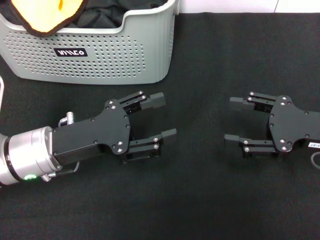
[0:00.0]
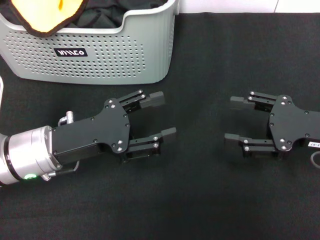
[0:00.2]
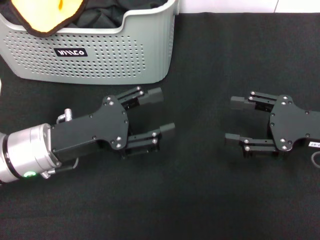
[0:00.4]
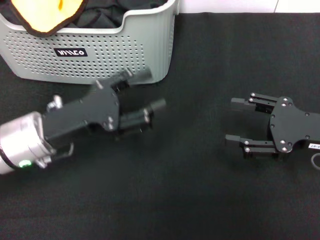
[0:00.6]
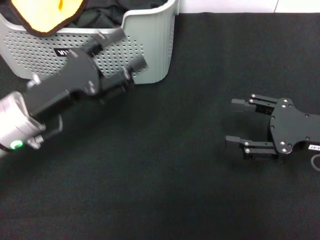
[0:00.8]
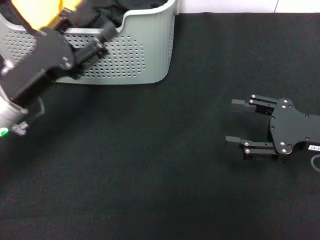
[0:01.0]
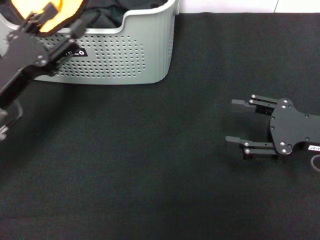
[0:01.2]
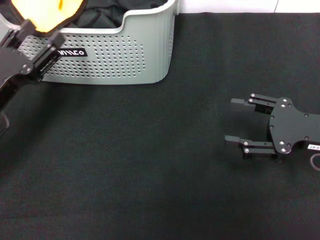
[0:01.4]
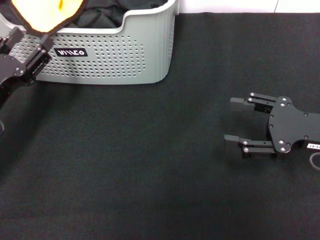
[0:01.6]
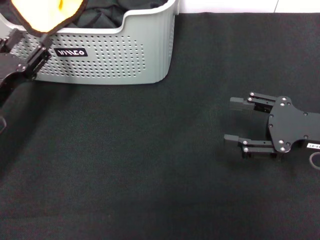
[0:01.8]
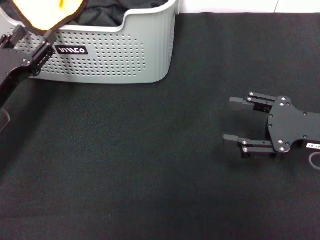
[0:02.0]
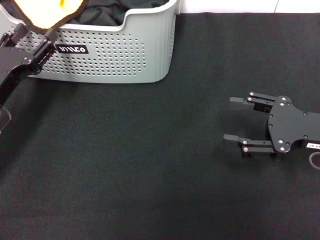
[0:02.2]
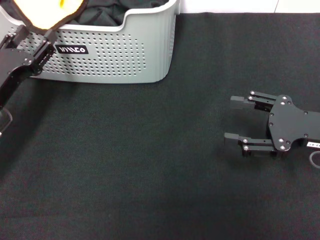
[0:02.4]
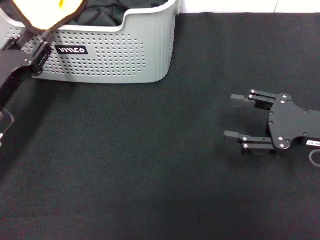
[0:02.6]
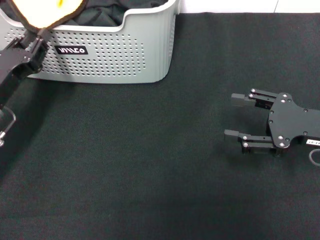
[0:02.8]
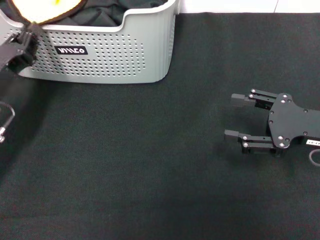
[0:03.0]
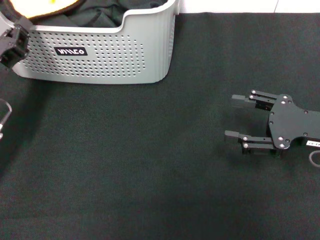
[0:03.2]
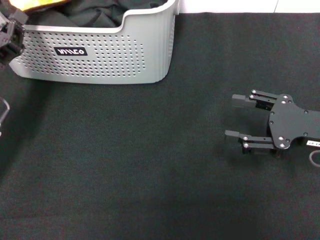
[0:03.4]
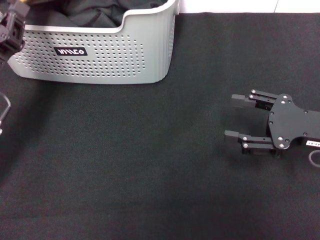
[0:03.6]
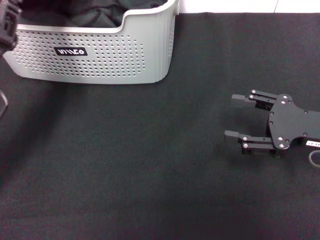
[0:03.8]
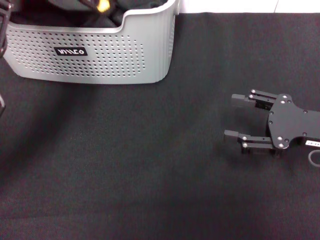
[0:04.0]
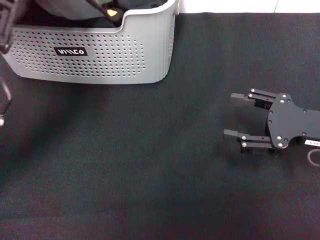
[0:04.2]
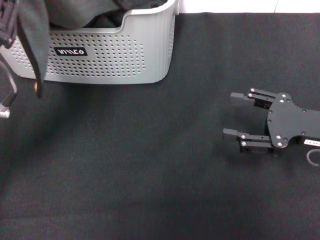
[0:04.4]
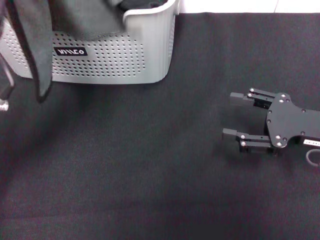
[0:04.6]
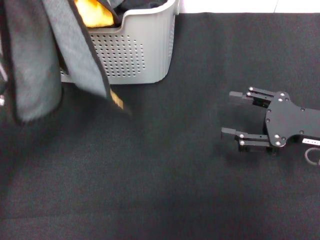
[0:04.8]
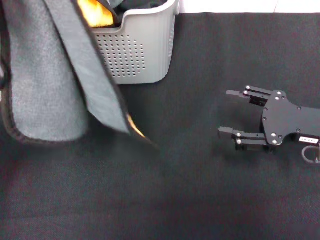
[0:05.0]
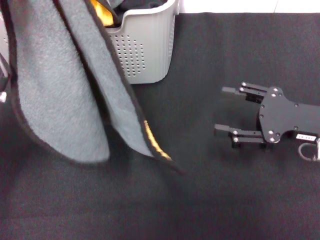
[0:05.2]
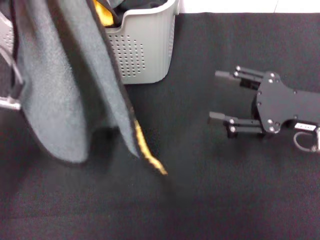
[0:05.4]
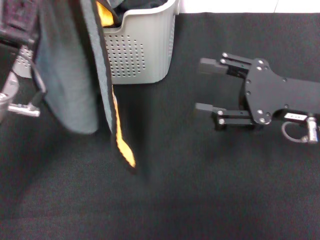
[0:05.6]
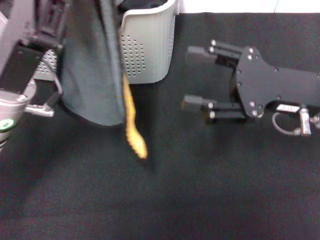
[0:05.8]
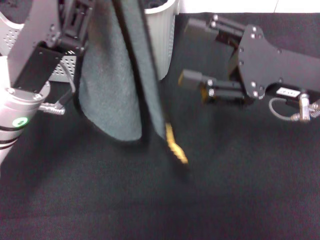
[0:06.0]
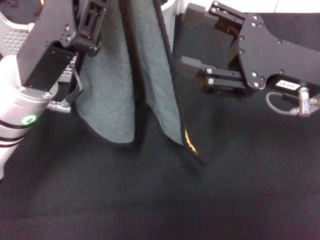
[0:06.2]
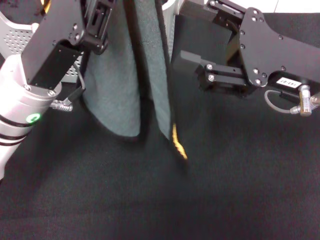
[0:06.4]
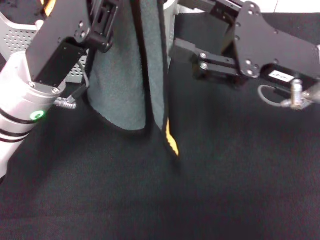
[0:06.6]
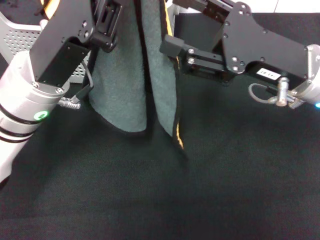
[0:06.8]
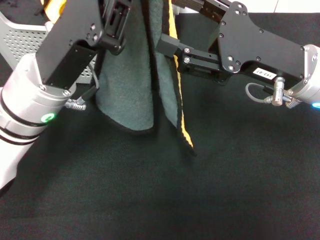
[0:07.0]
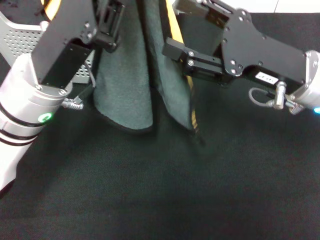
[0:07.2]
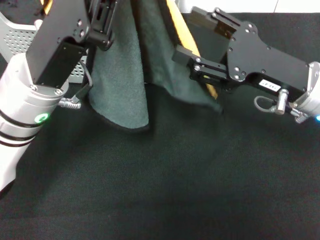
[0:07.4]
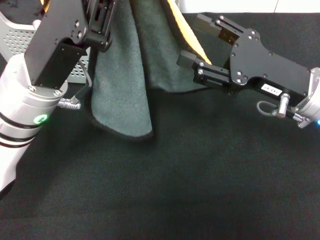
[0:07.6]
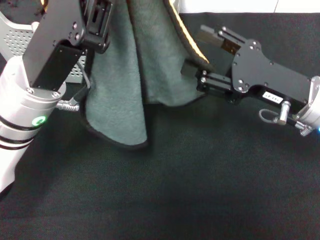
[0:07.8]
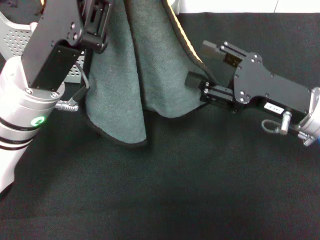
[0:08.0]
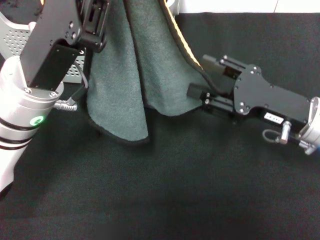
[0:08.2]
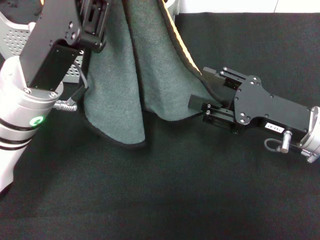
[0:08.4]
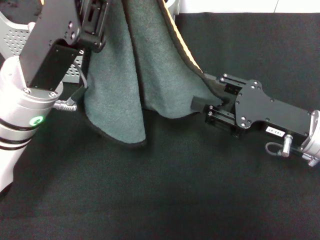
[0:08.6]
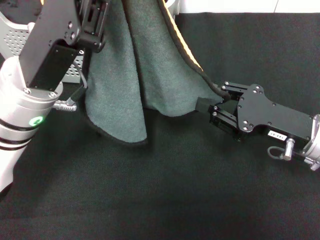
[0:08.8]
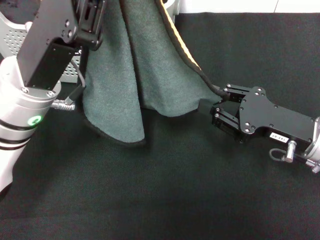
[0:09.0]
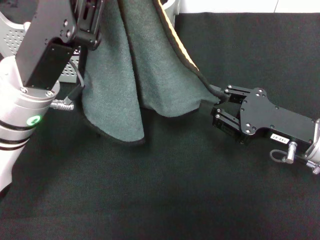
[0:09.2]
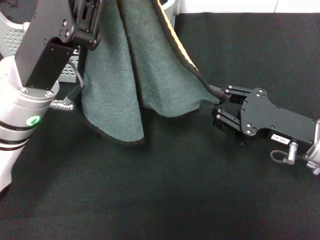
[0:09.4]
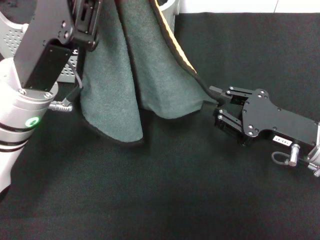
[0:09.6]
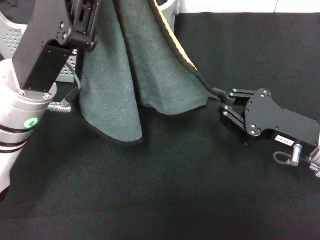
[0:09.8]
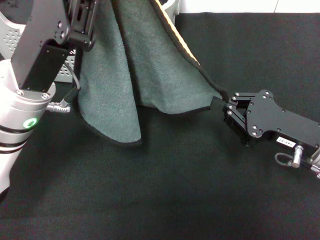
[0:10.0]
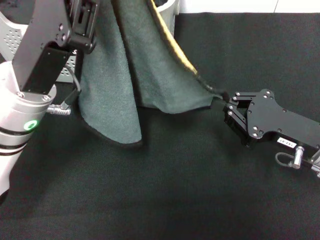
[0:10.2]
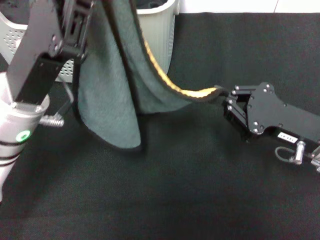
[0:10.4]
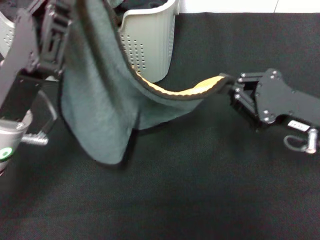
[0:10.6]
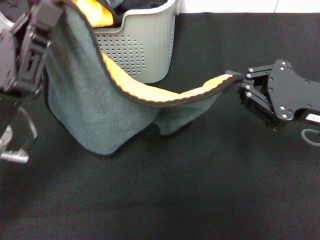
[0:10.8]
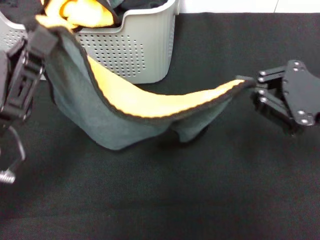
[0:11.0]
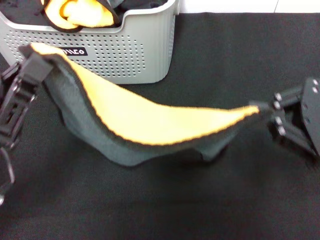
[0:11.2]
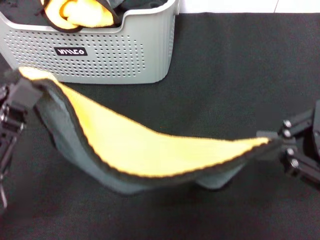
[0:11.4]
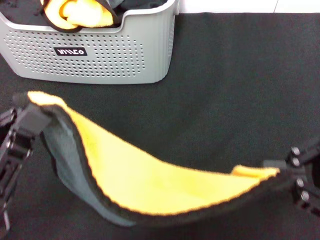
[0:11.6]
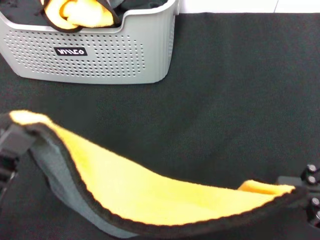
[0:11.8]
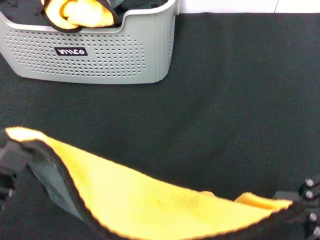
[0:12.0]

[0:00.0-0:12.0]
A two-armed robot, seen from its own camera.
Task of the whole recording: pick up the towel from the storage box and lay it flat on the black tablecloth.
Step, 0:00.0 to 0:02.8: Pick up a towel with the left gripper.
Step, 0:03.0 to 0:09.8: Spread the towel flat with the left gripper.
0:00.0 to 0:01.6: The left gripper is displaced to the left by roughly 10 cm.
0:01.6 to 0:03.0: The left gripper closes up.
0:03.0 to 0:04.4: The left gripper heads upward, covering some 10 cm, and closes its fingers.
0:04.4 to 0:06.0: The right gripper shifts about 10 cm to the left and upward. The left gripper travels to the right by some 5 cm.
0:07.6 to 0:09.0: The right gripper moves downward, about 5 cm, and closes.
0:09.0 to 0:10.4: The right gripper closes up.
0:10.4 to 0:12.0: The left gripper goes approximately 15 cm backward and to the left. The right gripper shifts roughly 15 cm backward, upward and to the right.

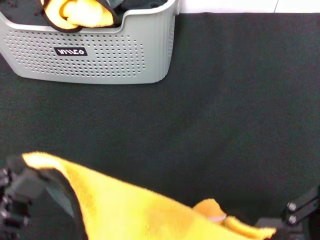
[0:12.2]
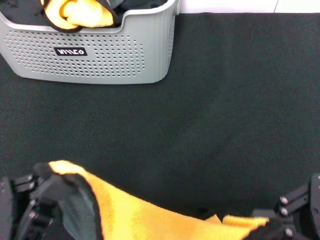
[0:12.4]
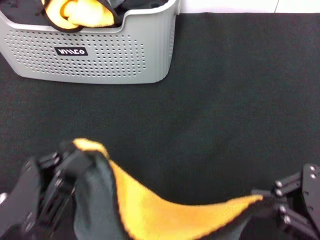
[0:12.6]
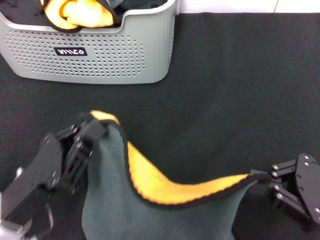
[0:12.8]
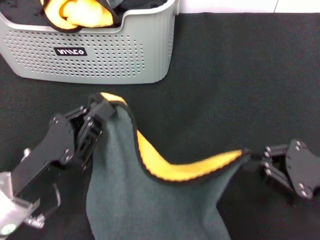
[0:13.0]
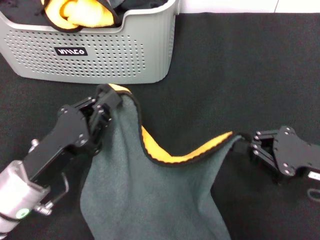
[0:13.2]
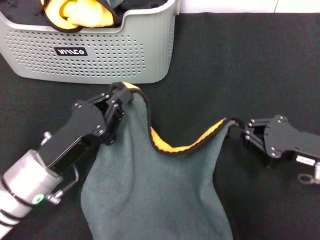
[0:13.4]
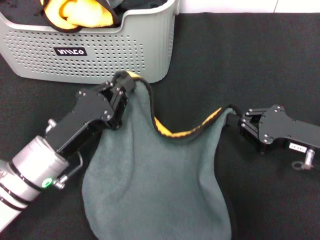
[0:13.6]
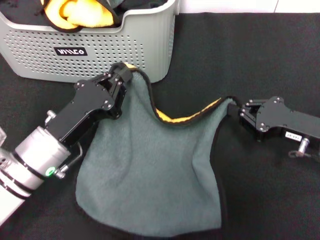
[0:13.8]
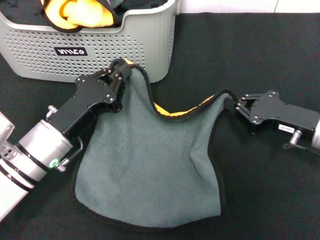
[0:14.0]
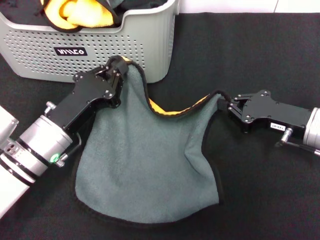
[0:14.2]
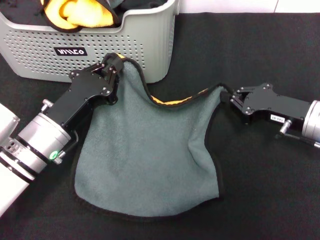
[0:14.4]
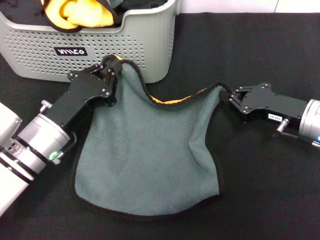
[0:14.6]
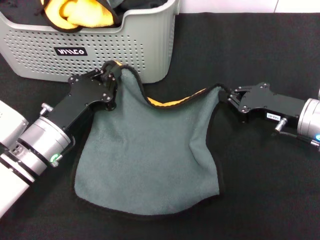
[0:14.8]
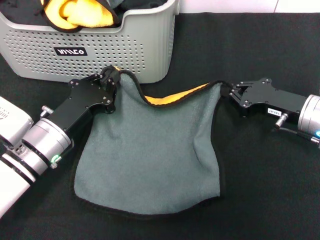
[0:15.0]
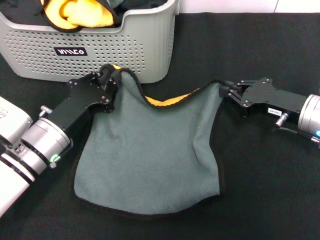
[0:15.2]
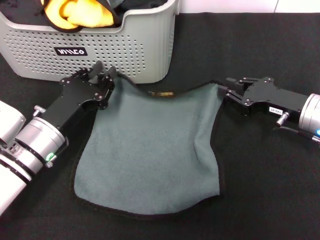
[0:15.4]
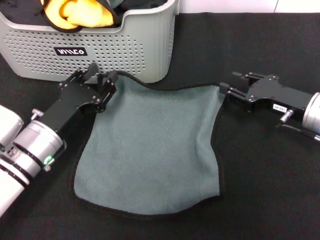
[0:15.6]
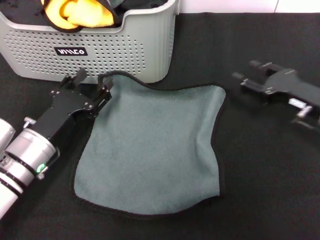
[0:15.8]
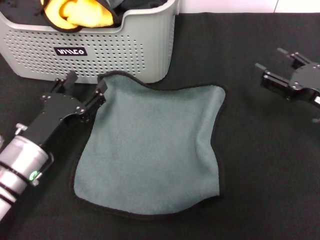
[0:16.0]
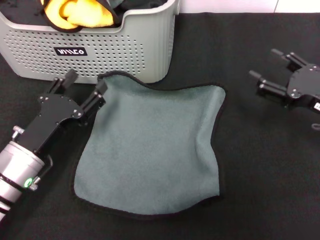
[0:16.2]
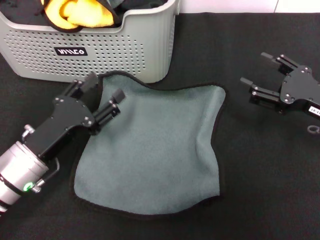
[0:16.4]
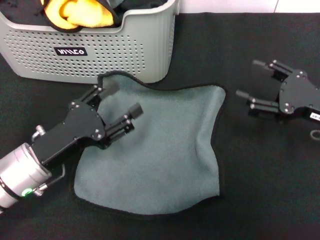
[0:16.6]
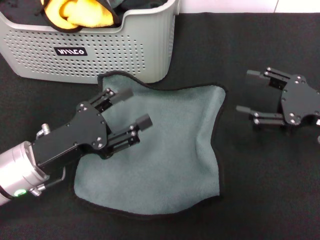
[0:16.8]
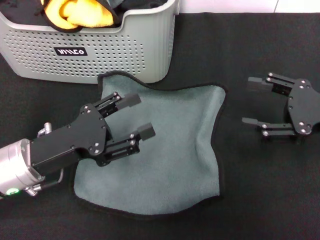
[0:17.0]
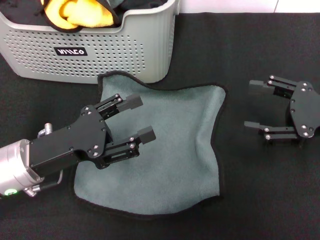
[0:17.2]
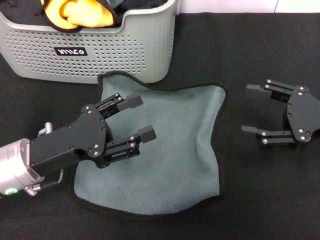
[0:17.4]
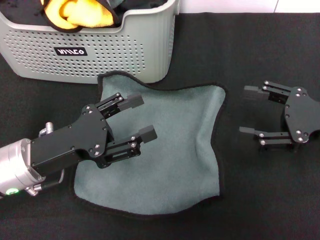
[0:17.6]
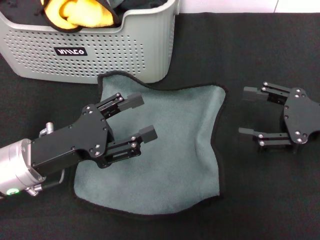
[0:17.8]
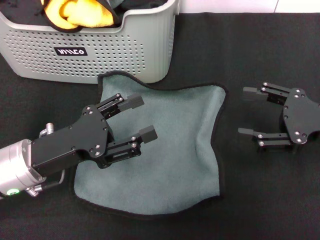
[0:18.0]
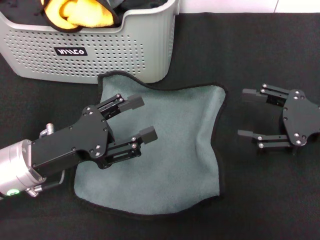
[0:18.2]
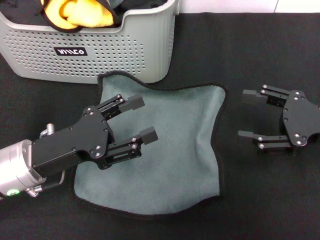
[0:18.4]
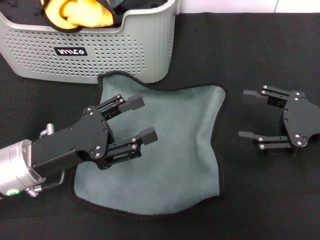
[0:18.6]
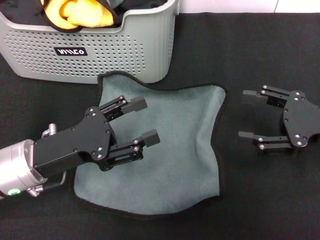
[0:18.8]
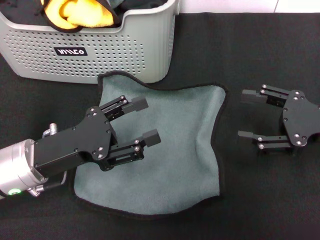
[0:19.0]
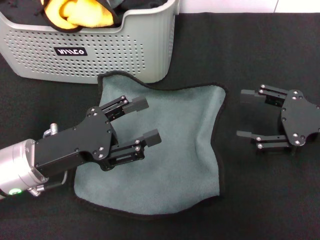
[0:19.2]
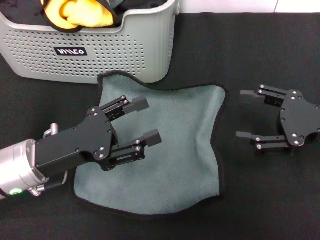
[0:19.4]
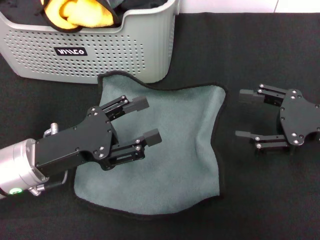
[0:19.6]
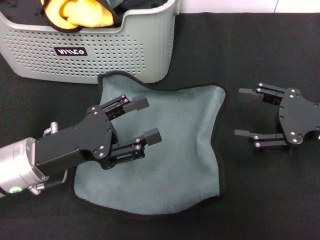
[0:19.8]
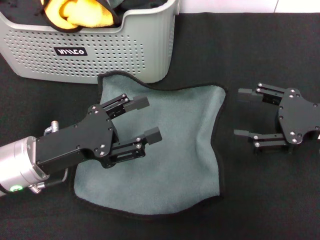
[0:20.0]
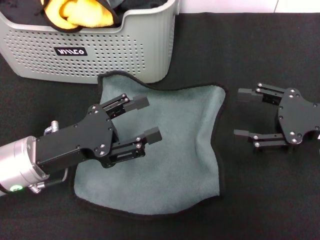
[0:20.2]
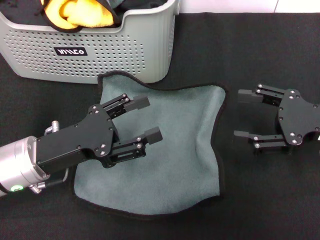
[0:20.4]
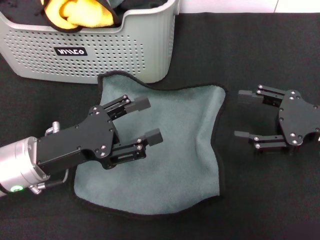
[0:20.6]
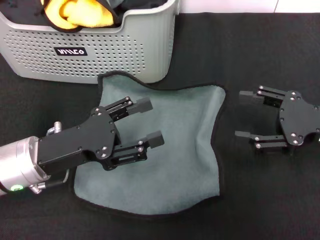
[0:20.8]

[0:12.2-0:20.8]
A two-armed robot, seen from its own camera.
Task of the whole recording: pick up the towel from the storage box and lay it flat on the black tablecloth.
Step, 0:12.2 to 0:15.4: Spread the towel flat with the right gripper.
0:12.2 to 0:13.6: The left gripper shifts roughly 15 cm forward; the right gripper heads forward and downward, covering approximately 15 cm.
0:13.6 to 0:15.0: The right gripper travels forward by some 5 cm.
0:15.0 to 0:16.6: The left gripper moves about 5 cm, and opens; the right gripper ends up roughly 5 cm from where it was, and opens its fingers.
0:16.6 to 0:18.0: The grippers move only a little.
0:18.0 to 0:20.8: Both grippers stay put.
